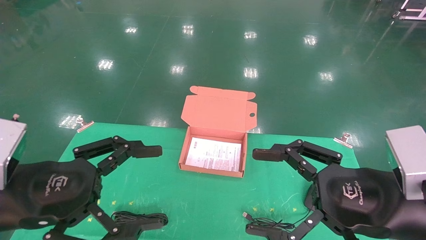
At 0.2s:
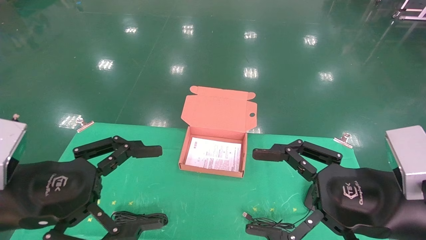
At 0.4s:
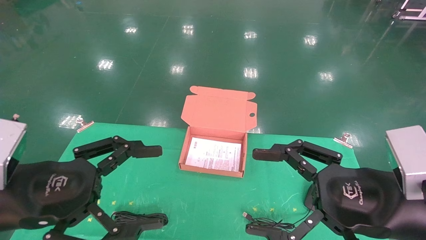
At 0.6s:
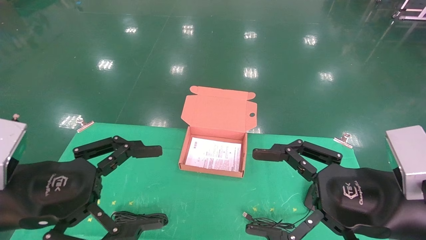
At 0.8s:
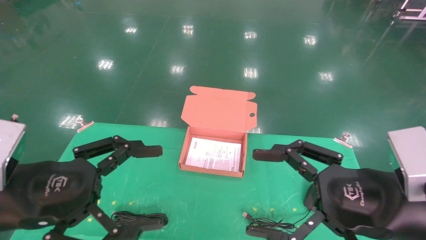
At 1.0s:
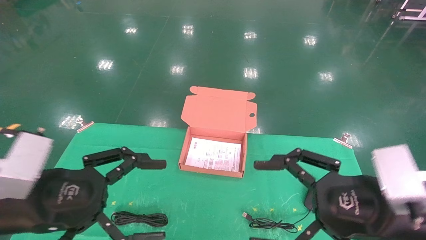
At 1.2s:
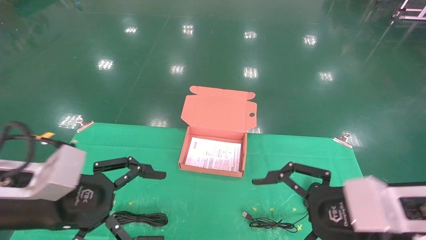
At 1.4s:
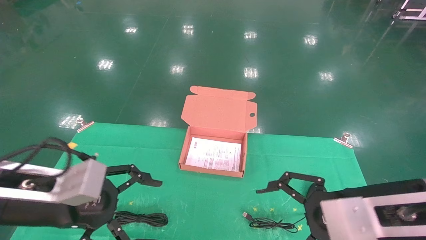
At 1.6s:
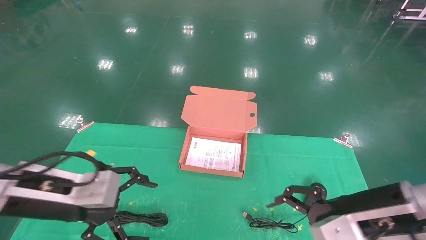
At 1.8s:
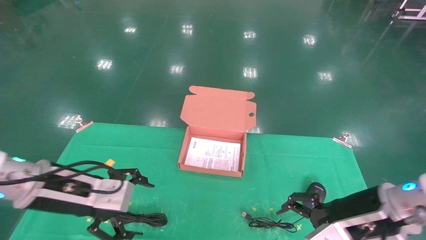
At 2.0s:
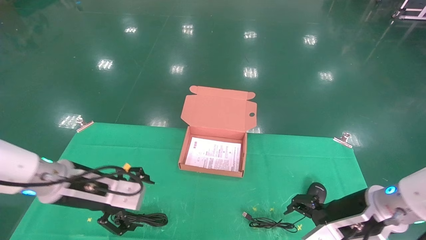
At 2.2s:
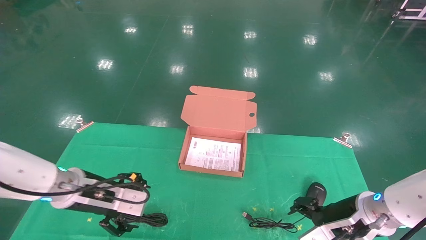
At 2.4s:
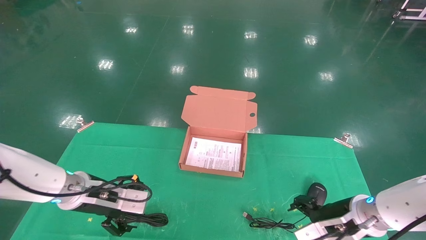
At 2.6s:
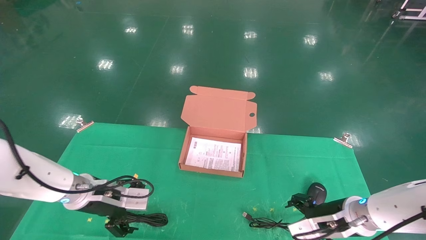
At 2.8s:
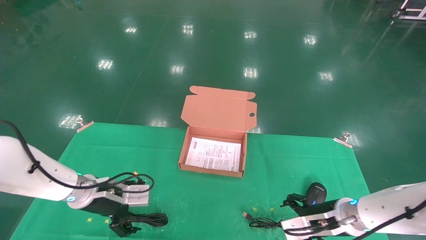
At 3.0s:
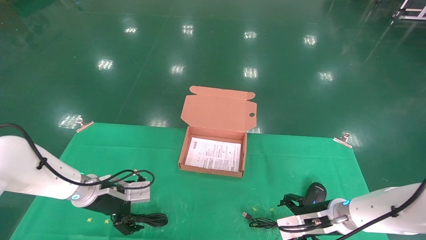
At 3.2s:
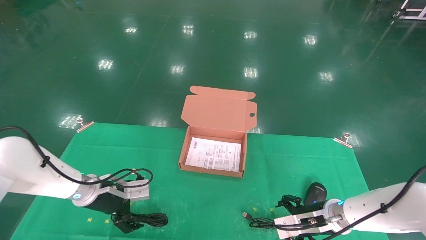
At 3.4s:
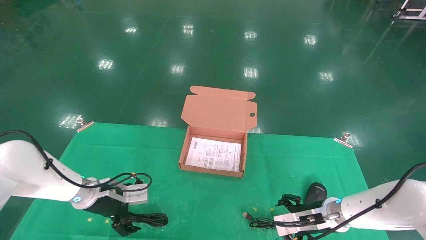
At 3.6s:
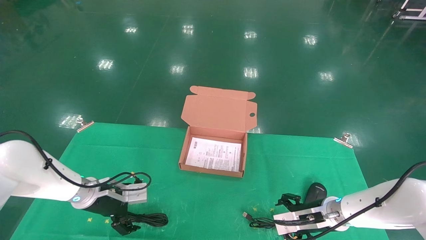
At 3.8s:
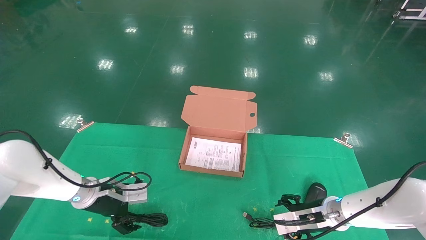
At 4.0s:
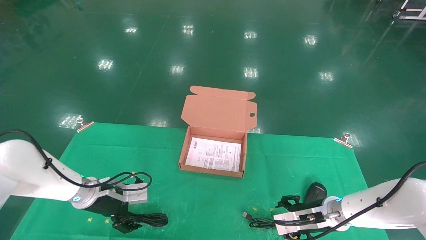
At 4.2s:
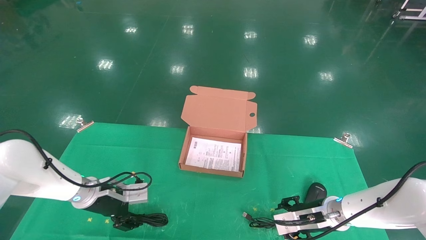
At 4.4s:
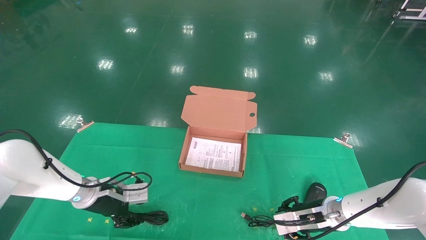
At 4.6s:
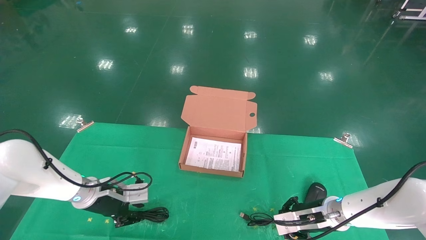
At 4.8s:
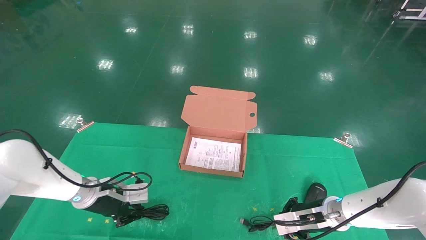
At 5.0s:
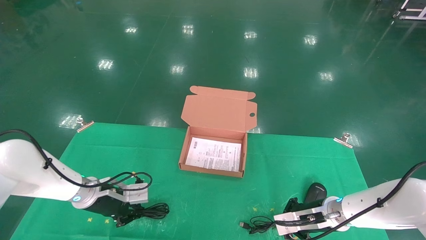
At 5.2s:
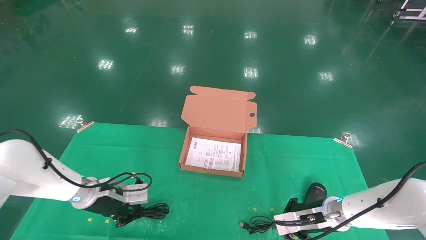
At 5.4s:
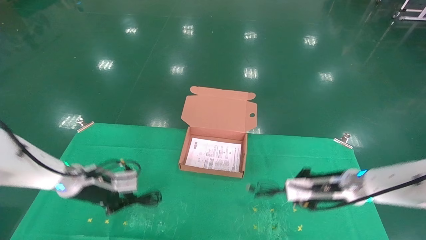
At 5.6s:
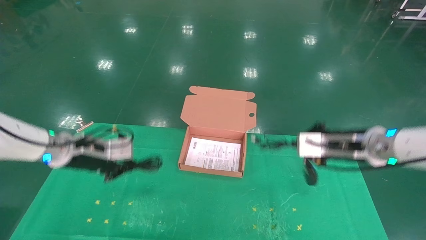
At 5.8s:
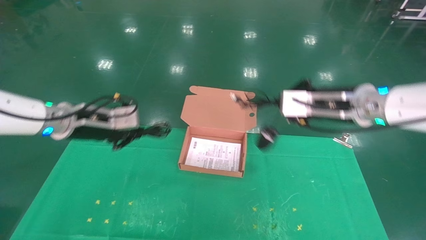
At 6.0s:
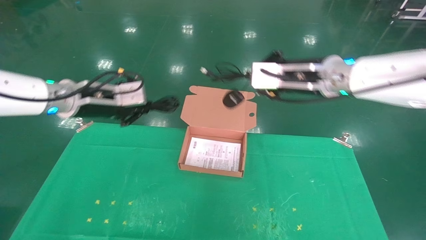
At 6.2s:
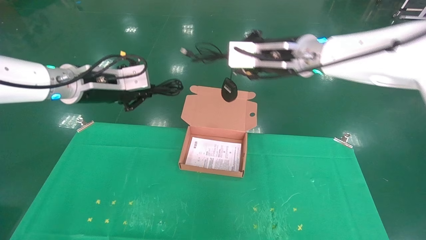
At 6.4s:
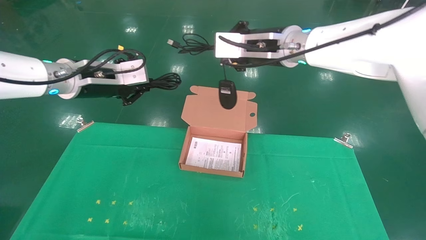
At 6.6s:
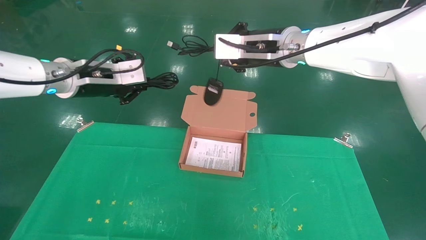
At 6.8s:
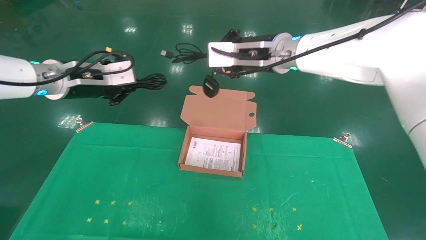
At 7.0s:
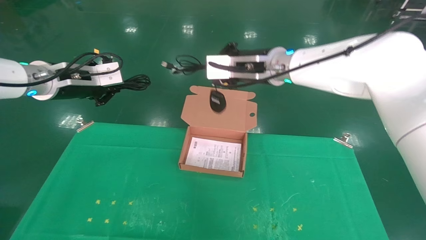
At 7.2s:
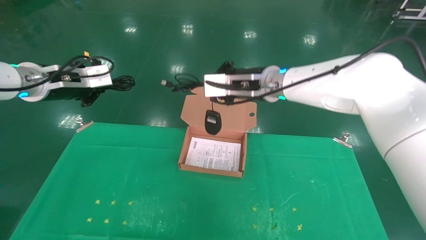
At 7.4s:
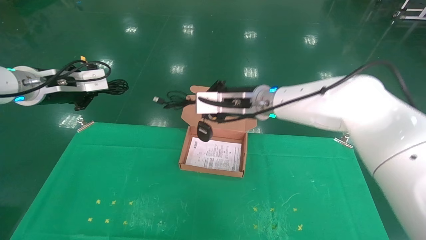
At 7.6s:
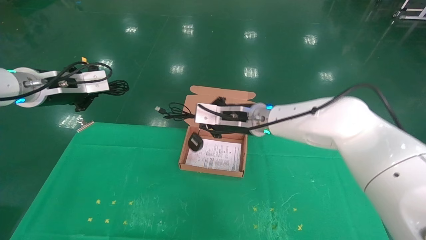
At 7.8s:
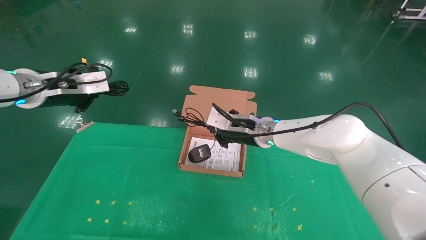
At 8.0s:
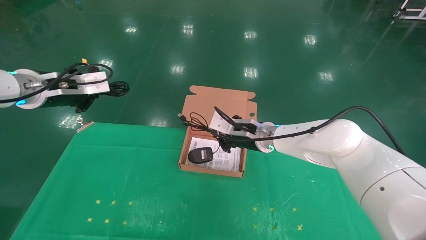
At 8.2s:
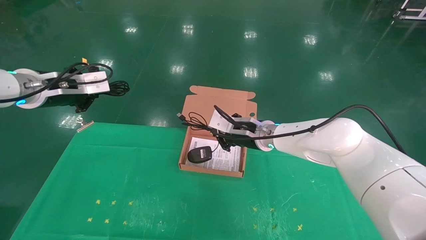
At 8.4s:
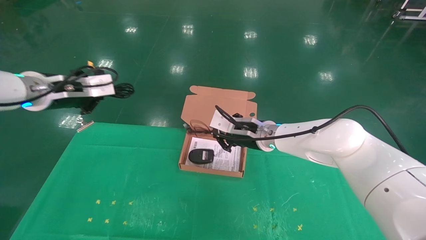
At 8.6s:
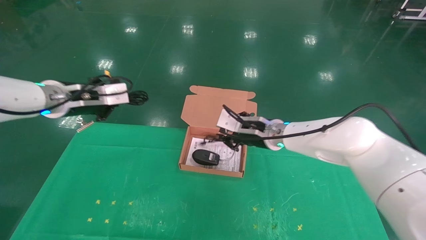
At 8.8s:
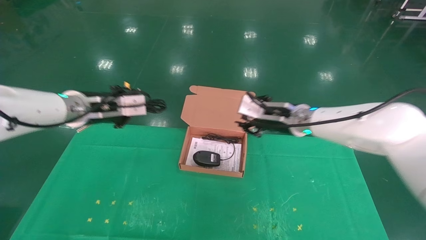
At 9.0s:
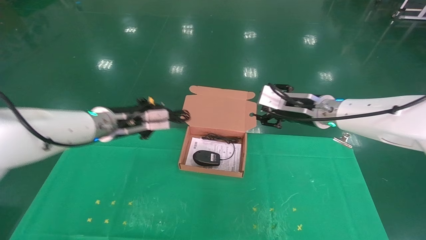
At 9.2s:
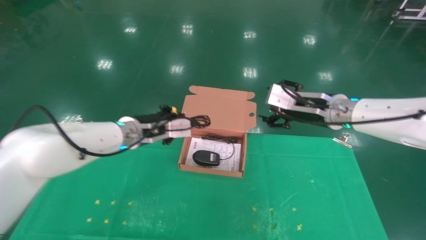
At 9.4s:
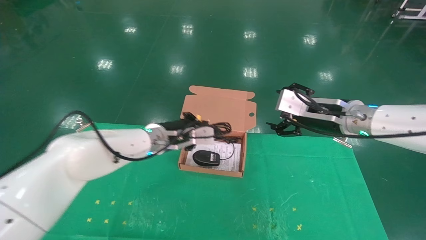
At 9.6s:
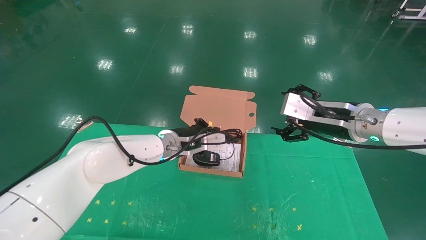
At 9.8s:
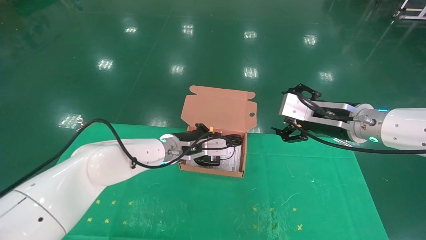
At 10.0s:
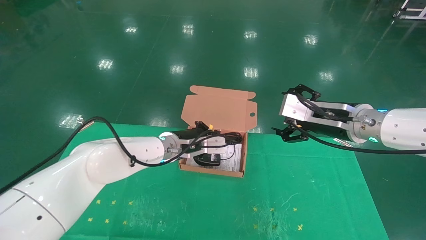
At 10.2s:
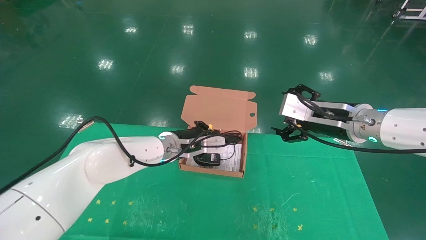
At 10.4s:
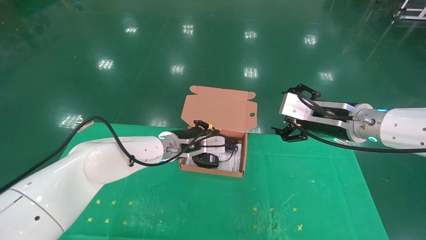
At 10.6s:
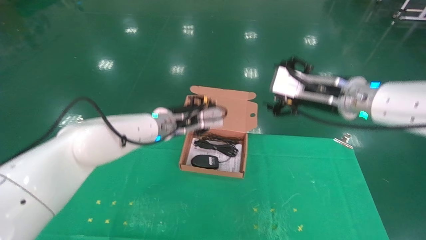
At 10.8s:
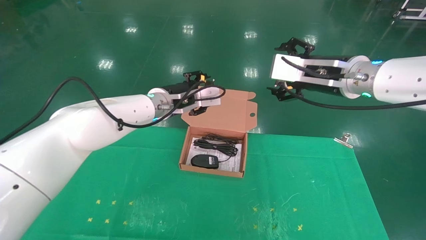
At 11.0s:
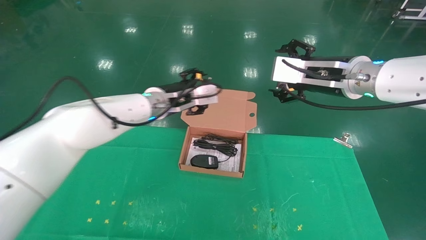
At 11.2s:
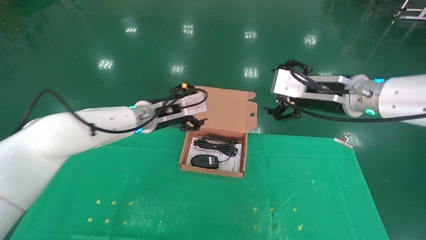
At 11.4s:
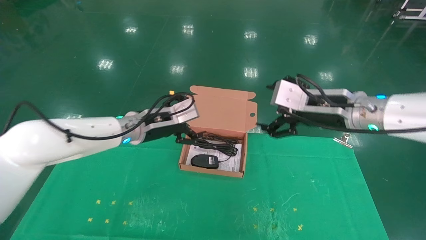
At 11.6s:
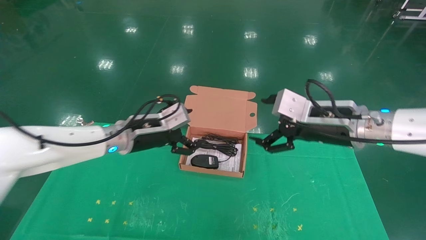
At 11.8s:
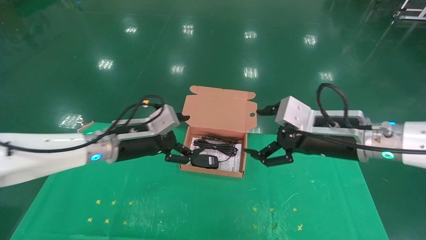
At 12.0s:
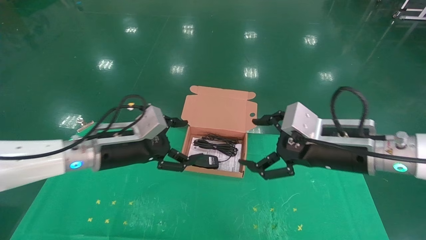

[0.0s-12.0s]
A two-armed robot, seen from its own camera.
Task of the whole recording: grasp data cable left put into box grasp mouse right put into box.
Step, 0.8s to 5.2s: Grab and pick up both the mouse and power cord from the accessory packaging area at the same time.
Step, 5.4s to 10.8s: Place the mouse and power cord into the box.
0.0s to 1.6s: Both grippers move forward, approximately 5 cm.
1.6s to 3.0s: The right gripper goes some 20 cm downward and forward; the left gripper goes some 20 cm forward and downward.
3.0s to 4.4s: The right gripper closes its fingers, while the left gripper closes its fingers.
4.4s to 6.0s: Both grippers travel together upward, approximately 25 cm. The left gripper closes up. The right gripper closes its fingers.
6.0s to 7.6s: The left gripper is displaced to the left by about 5 cm. The right gripper is displaced to the left, downward and forward by about 15 cm.
7.6s to 9.0s: The left gripper travels to the right and downward by roughly 15 cm; the right gripper goes about 15 cm to the right, and opens its fingers.
9.0s to 10.4s: The left gripper shifts some 10 cm to the right; the right gripper shifts roughly 5 cm backward, and opens its fingers.
10.4s to 12.0s: The left gripper heads to the left and backward, covering about 15 cm, and opens. Meanwhile the right gripper shifts roughly 5 cm backward.

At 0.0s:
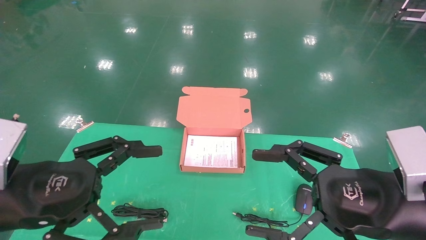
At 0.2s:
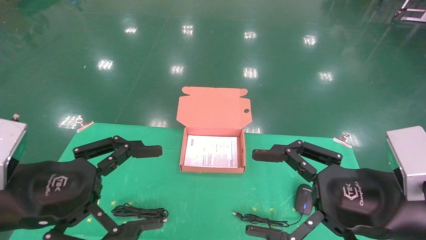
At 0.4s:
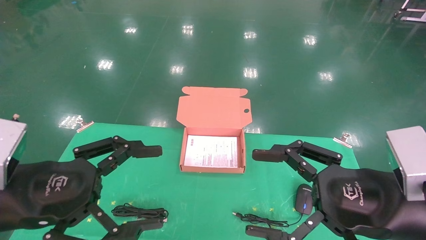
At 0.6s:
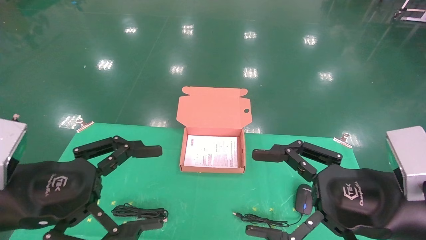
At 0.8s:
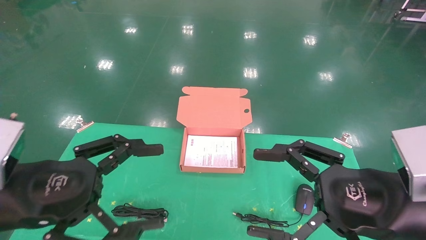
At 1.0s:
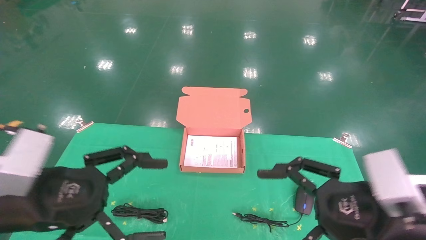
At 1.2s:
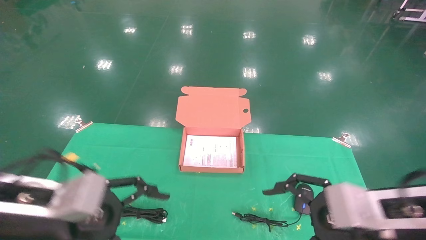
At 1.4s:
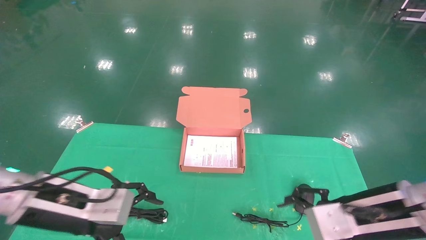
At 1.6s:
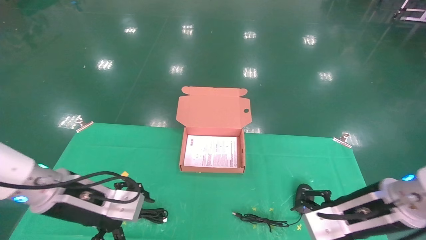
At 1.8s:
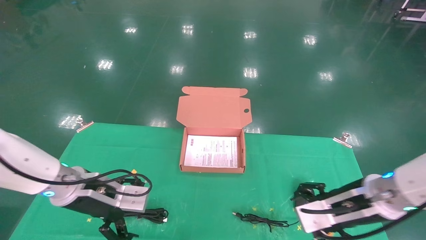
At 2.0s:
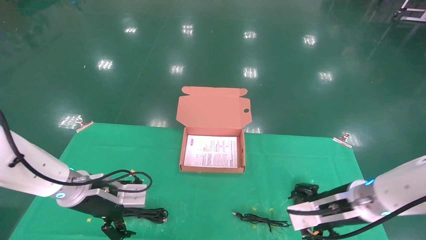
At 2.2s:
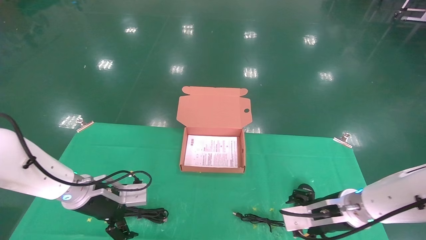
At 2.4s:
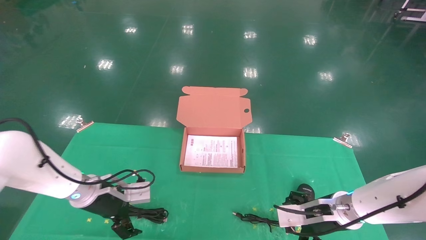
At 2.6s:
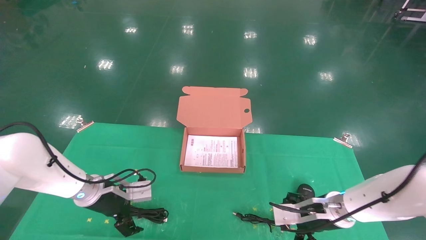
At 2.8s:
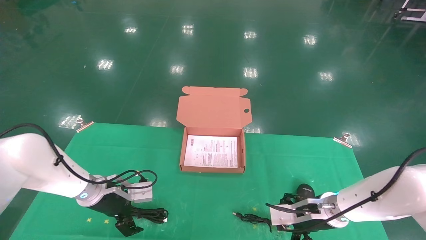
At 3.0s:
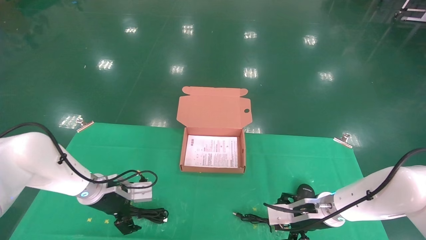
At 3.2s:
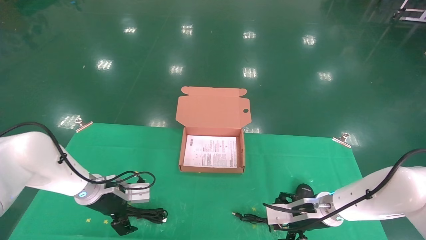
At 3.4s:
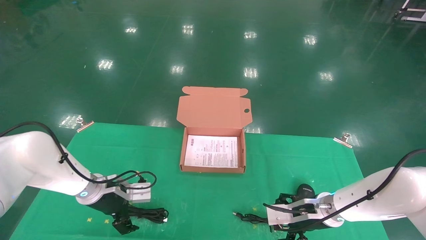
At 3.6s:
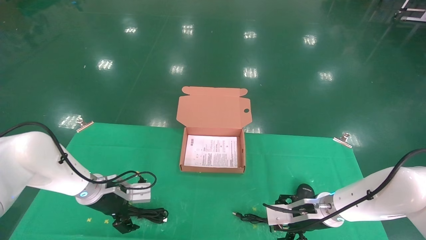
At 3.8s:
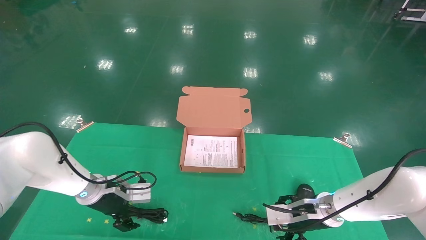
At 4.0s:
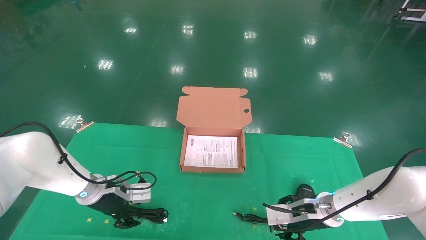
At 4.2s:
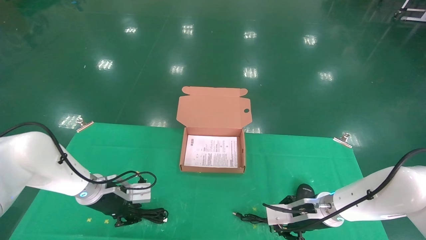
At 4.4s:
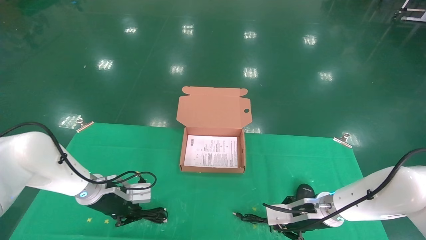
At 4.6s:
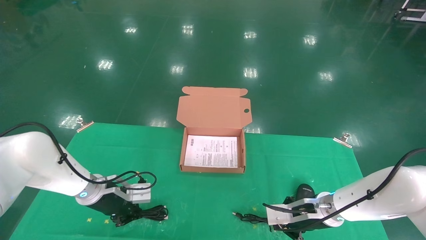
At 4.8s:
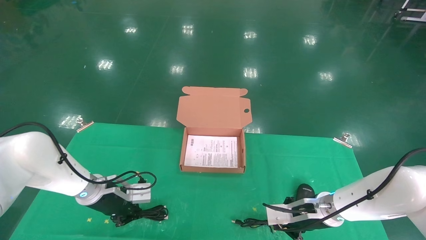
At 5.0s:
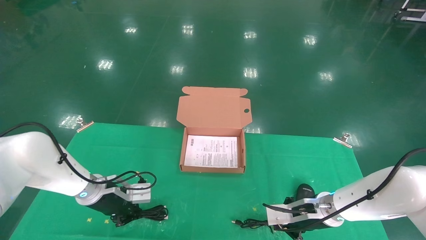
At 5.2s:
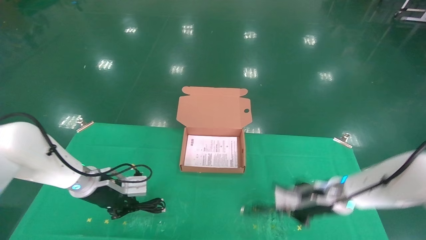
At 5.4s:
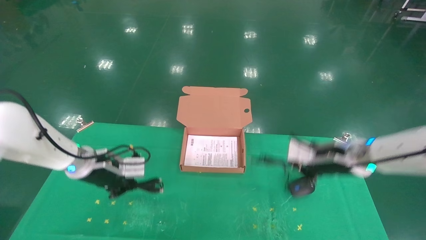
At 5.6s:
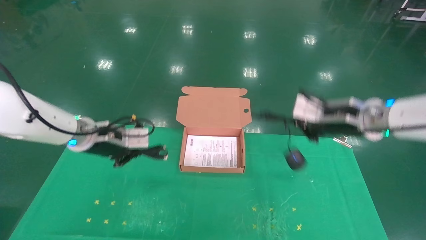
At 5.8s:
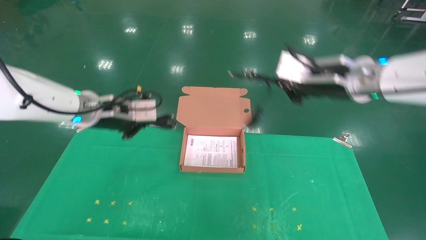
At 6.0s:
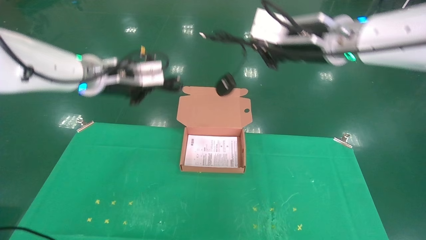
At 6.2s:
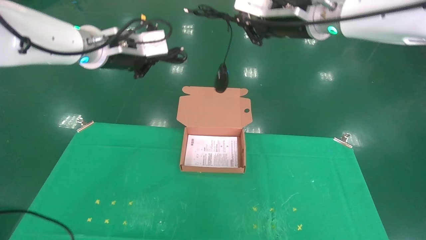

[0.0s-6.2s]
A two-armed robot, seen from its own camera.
Task of the whole recording: grasp data cable left put into box grasp mouse right put into box.
Step, 1.0s to 5.8s: Grab and pick up both the mouse and power cord from the accessory packaging area at the same time.
0.0s to 1.6s: Both grippers move forward and downward, roughly 10 cm.
1.6s to 3.2s: The two grippers go some 15 cm forward and downward.
3.2s to 4.6s: The right gripper closes, while the left gripper closes its fingers.
4.6s to 6.2s: The two grippers go approximately 35 cm upward.
